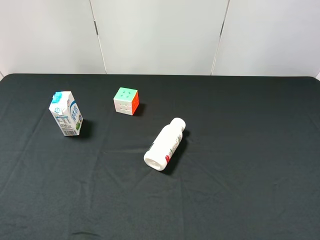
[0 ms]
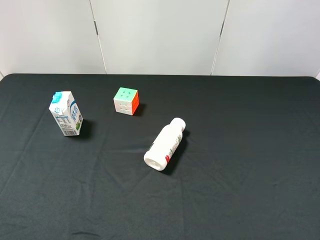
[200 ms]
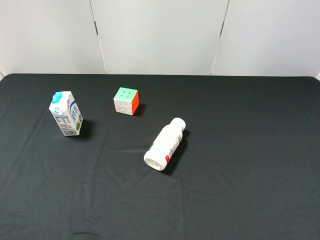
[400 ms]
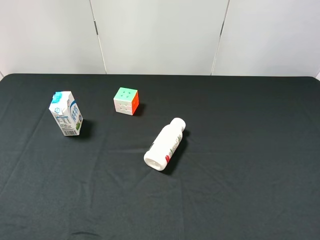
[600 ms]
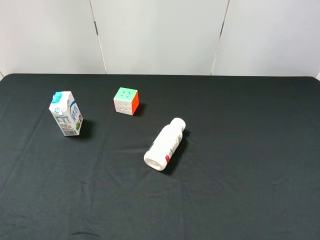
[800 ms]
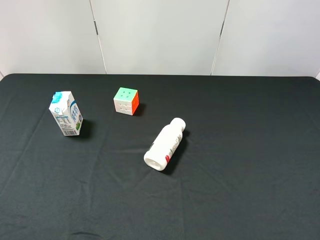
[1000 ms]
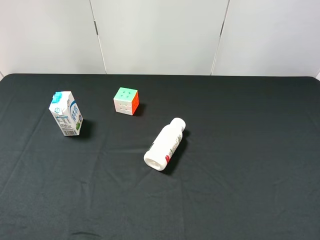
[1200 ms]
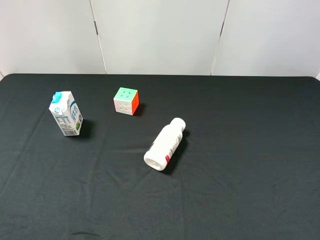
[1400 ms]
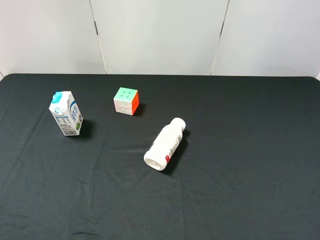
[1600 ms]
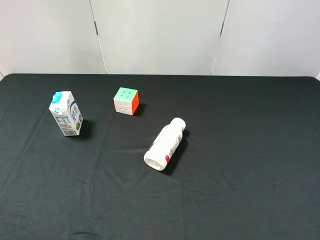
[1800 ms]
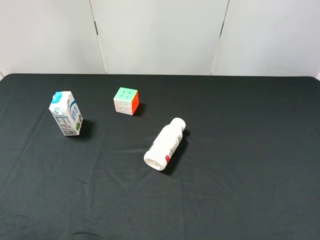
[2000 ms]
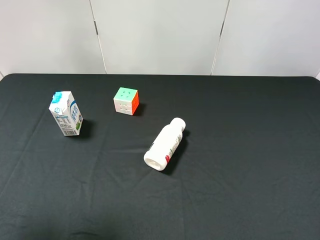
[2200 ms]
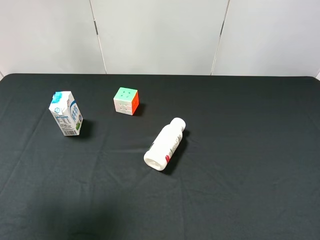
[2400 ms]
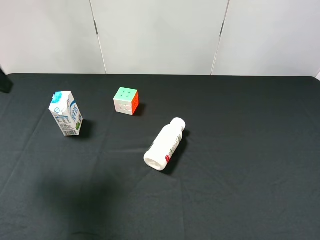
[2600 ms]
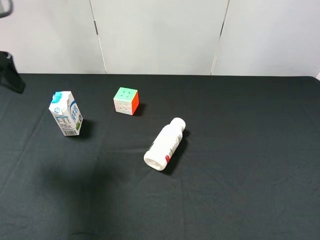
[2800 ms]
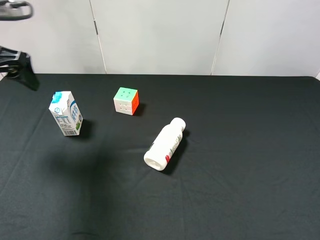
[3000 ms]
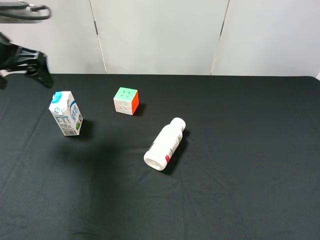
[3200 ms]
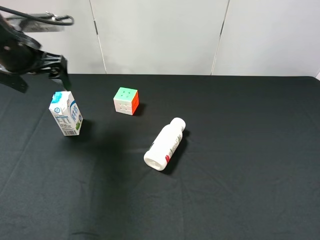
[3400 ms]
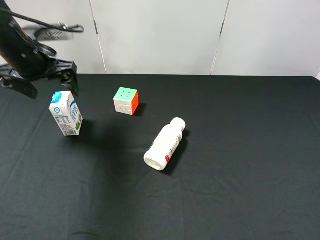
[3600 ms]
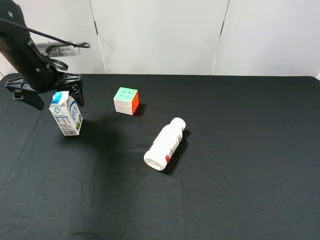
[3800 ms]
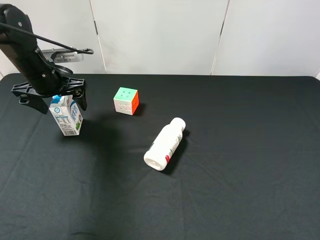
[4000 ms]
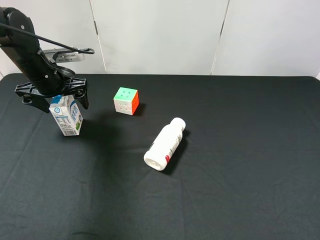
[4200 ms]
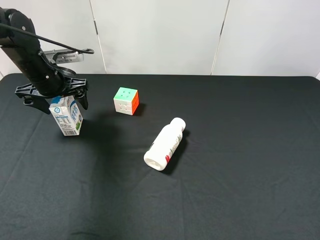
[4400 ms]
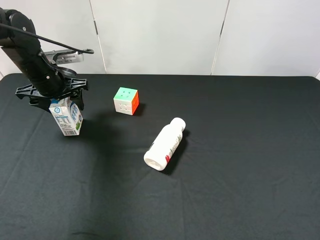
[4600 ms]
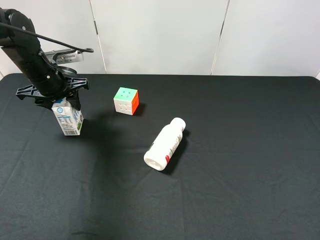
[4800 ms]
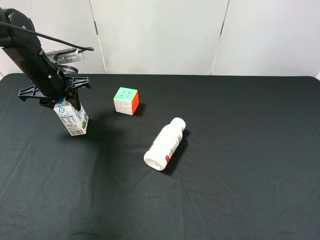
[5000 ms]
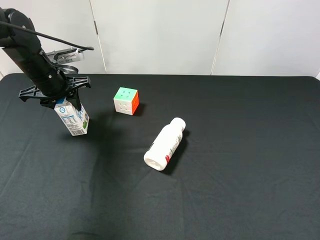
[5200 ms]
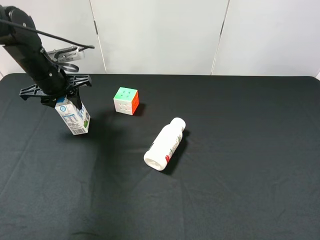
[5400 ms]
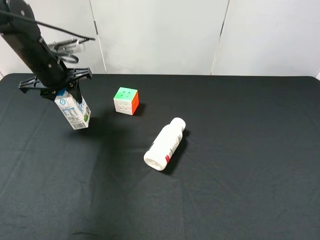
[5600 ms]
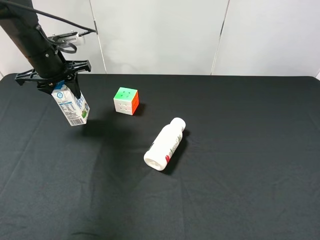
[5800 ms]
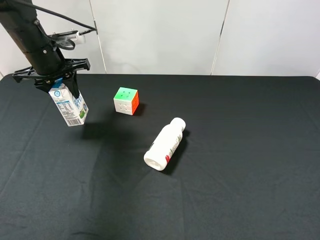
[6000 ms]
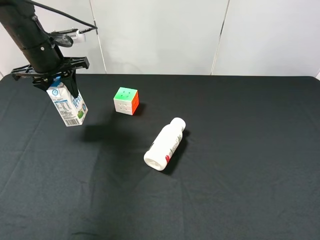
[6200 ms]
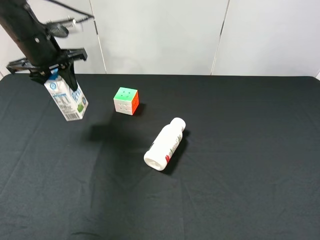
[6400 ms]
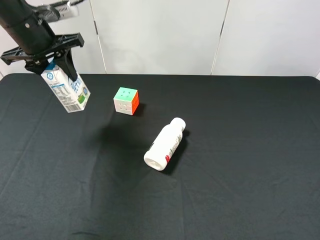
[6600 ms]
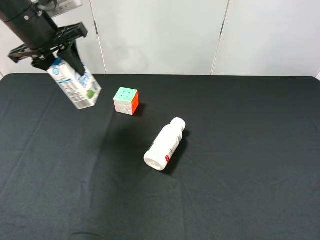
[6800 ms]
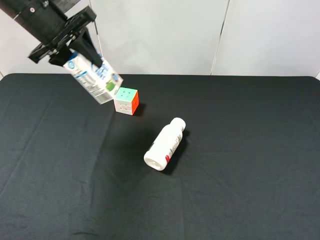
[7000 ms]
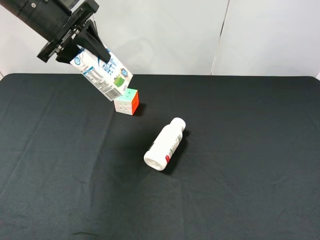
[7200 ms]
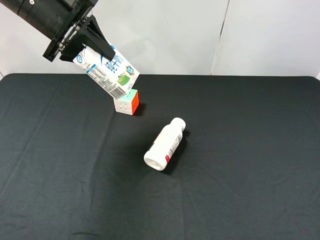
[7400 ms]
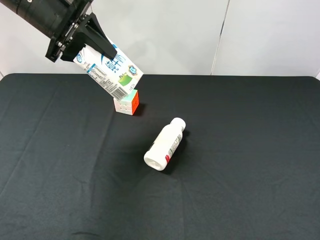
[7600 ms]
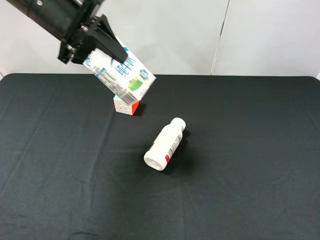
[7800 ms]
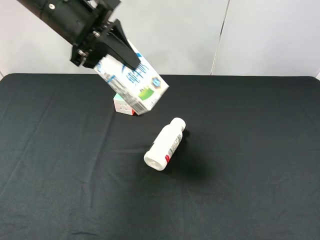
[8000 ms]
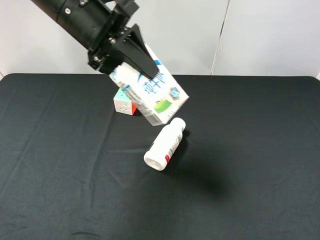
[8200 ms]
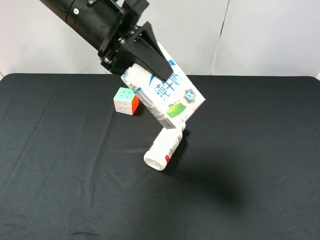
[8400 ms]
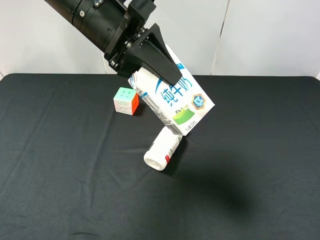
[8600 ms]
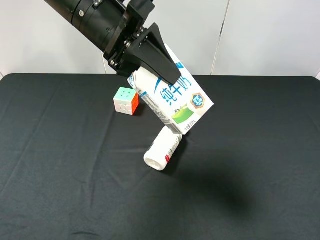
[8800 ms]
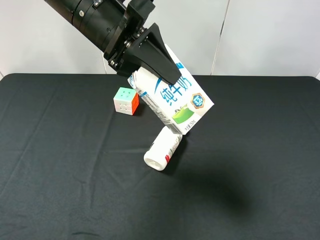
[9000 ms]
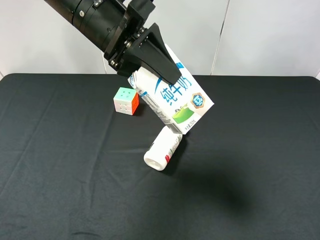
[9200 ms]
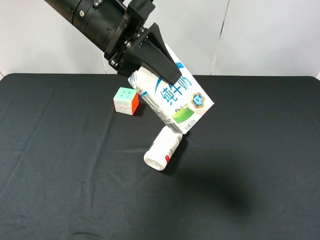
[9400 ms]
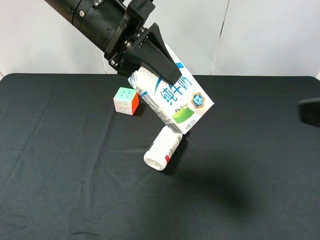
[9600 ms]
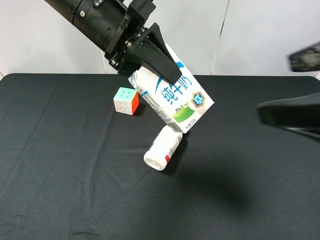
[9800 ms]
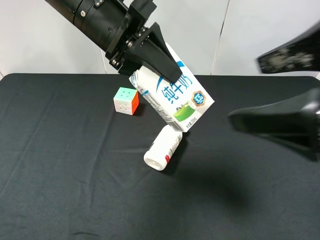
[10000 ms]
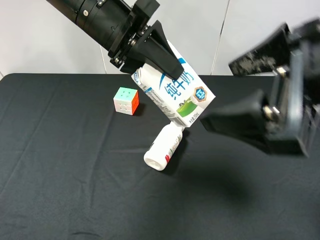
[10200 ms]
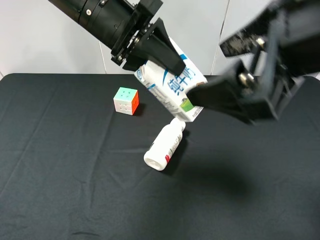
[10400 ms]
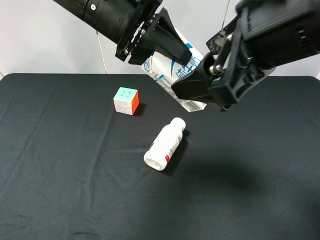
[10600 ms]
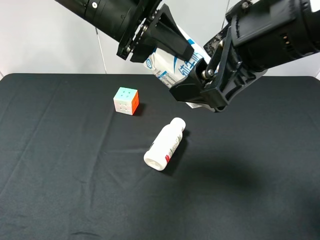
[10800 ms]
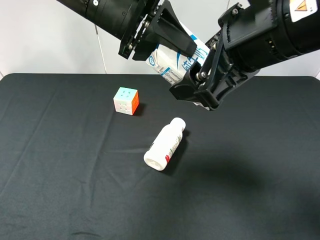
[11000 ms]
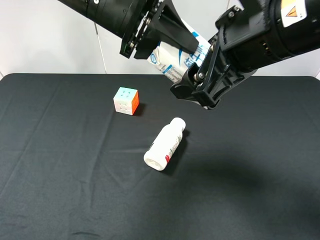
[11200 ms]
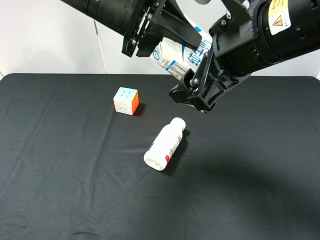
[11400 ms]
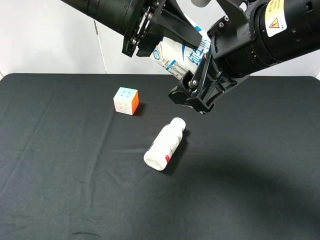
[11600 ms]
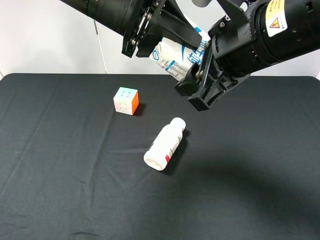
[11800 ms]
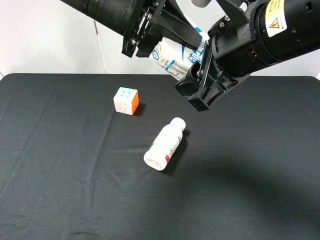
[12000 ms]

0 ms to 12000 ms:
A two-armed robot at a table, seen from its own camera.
Task of the whole recording: use the left gripper to pick up the item and transfer it from the left gripper to the right gripper.
1600 ms to 3000 ms: The left gripper shifts some 30 cm forward.
3000 ms to 4400 ms: The left gripper shifts approximately 15 cm downward and forward.
4400 ms to 6000 ms: The left gripper shifts by approximately 5 cm, and closes its fingers.
6000 ms to 7600 ms: The left gripper moves upward, about 10 cm.
7600 ms to 9000 ms: The left gripper shifts some 10 cm to the right and backward, while the right gripper shifts approximately 5 cm upward.
9000 ms to 10400 ms: The right gripper goes some 20 cm to the left and forward.
10400 ms to 12000 ms: The right gripper changes place by about 5 cm, and closes up.

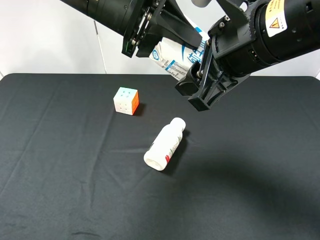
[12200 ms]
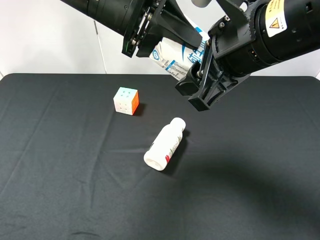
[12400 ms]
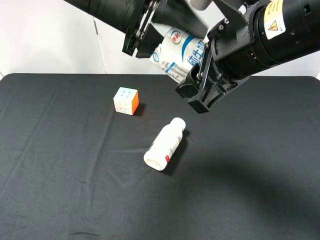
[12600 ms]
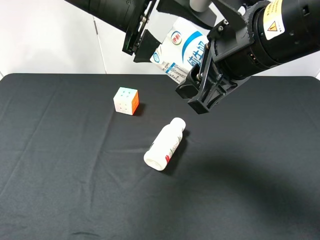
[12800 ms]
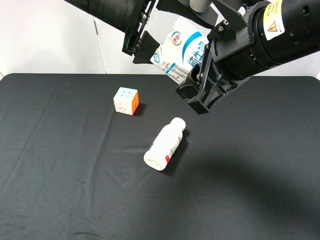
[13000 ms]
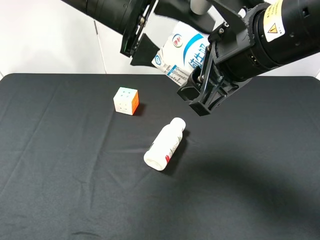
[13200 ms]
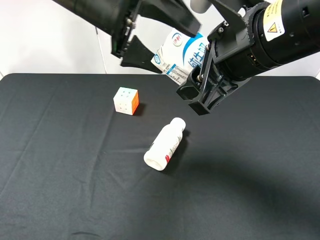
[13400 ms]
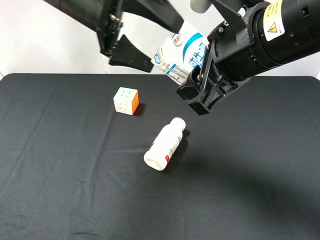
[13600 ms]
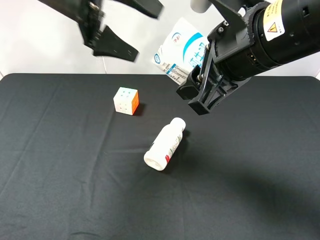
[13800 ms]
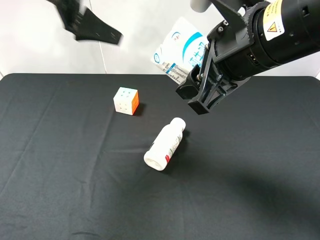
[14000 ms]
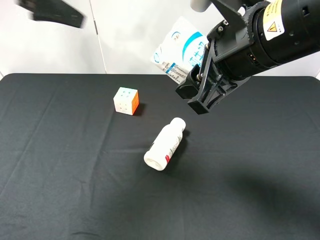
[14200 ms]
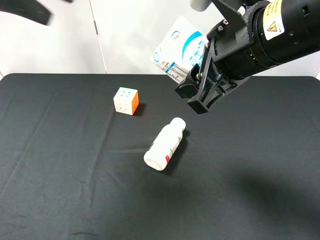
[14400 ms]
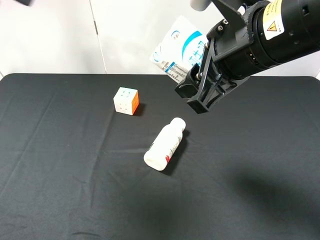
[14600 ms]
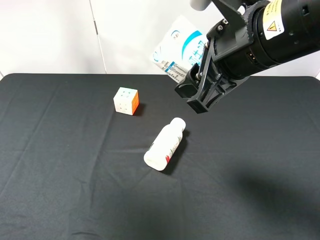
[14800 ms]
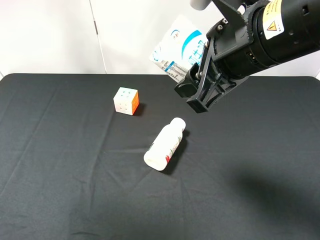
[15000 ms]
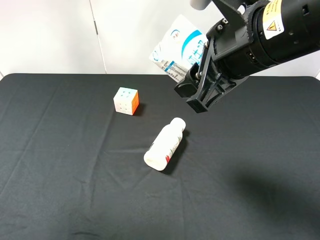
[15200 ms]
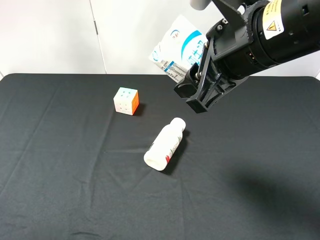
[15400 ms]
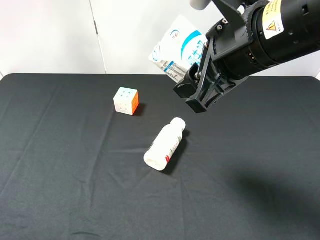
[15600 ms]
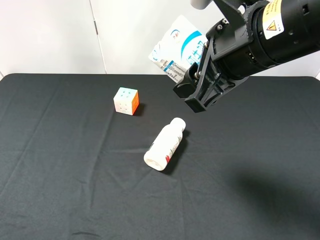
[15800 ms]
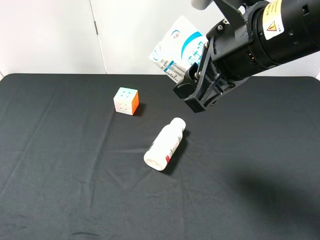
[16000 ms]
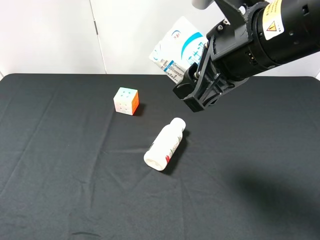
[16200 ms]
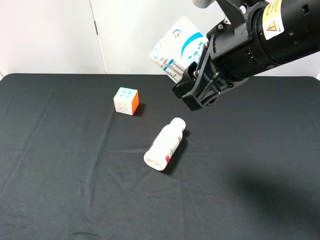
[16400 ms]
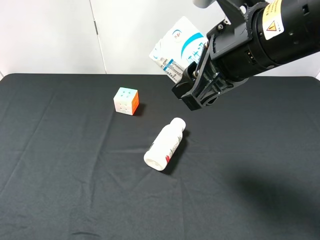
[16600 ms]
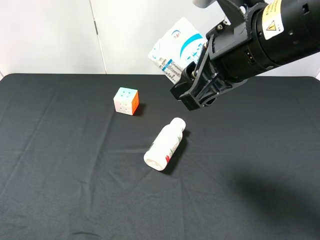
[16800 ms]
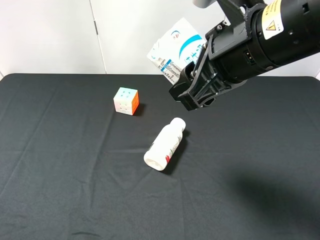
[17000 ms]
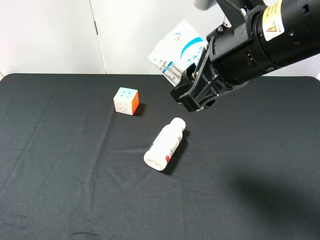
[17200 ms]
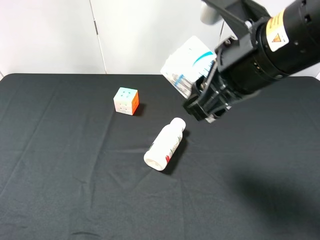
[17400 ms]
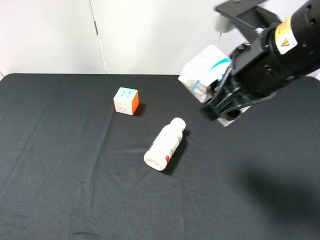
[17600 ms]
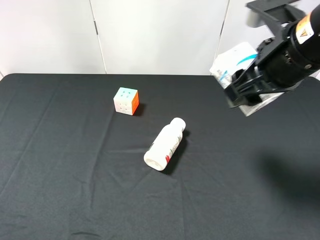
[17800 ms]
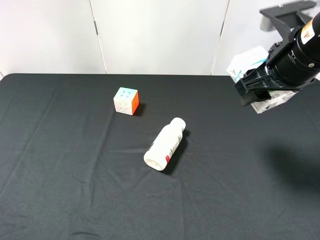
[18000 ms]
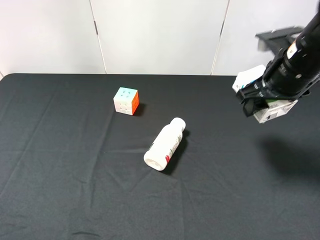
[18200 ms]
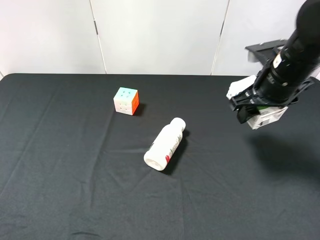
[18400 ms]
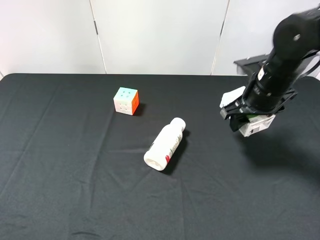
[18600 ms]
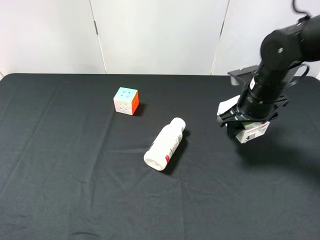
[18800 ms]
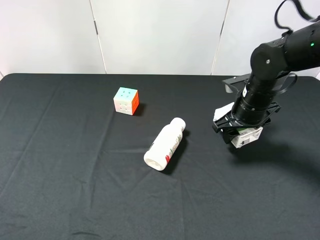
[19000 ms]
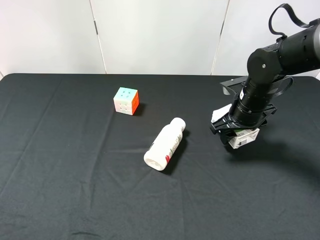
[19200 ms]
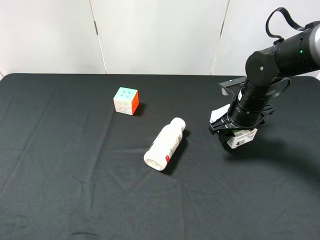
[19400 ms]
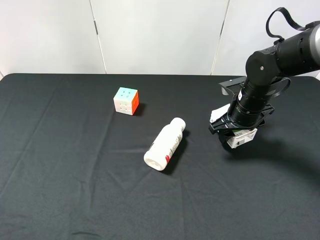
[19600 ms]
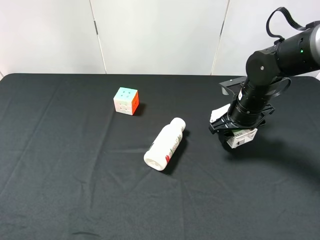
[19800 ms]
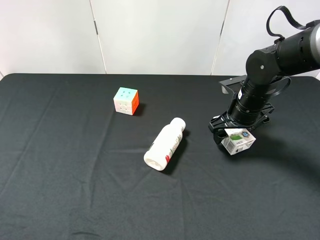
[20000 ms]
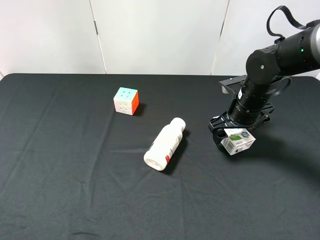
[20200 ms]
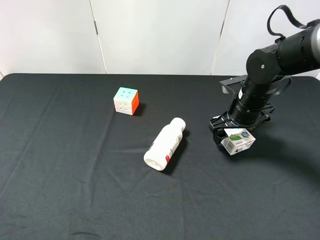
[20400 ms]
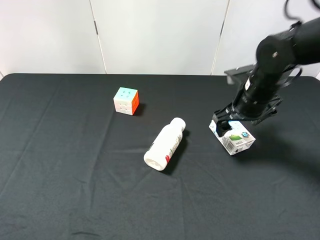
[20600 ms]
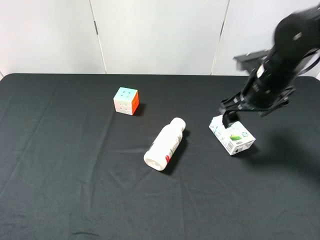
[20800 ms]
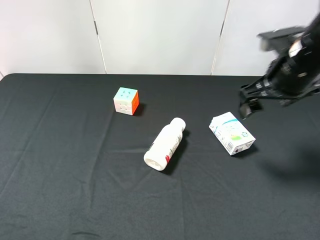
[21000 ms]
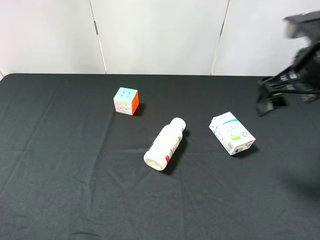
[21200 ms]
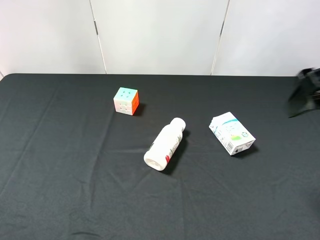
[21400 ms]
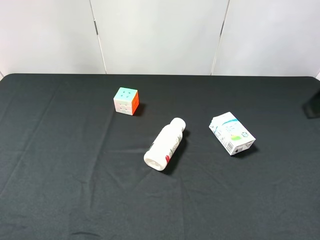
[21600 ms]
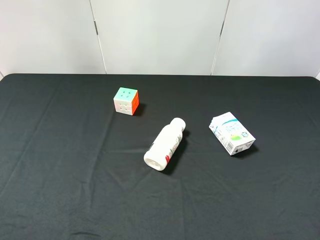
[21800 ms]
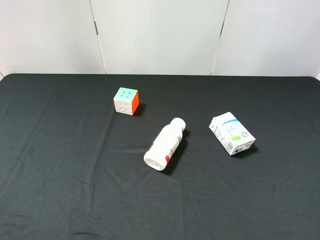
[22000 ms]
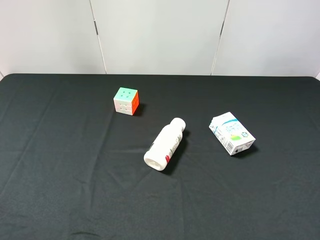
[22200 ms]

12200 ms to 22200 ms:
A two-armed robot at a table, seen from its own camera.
Task of the whole recording: use the left gripper to pick up the item and transfer it from the left gripper to the right gripper.
12200 ms to 13600 ms: The left gripper opens.
13600 ms to 15000 ms: The left gripper is displaced to the left, backward and upward by approximately 25 cm.
15000 ms to 16400 ms: The left gripper travels downward and backward by approximately 25 cm.
16400 ms to 18000 ms: The right gripper shifts approximately 10 cm to the right and forward.
18000 ms to 19400 ms: The right gripper moves downward and forward, about 15 cm.
19400 ms to 20800 ms: The right gripper is displaced upward by roughly 10 cm, and opens.
20800 ms to 22200 ms: The right gripper is displaced backward by some 25 cm.
